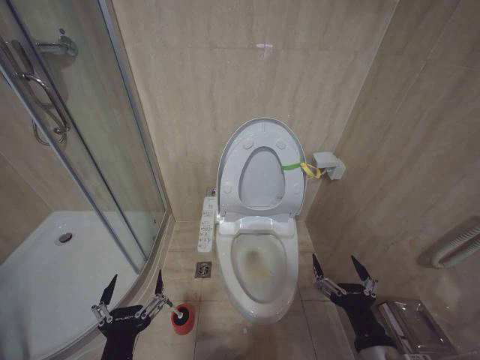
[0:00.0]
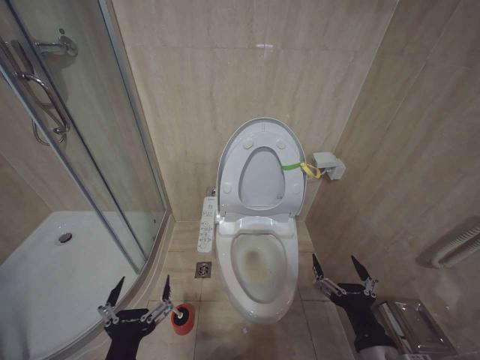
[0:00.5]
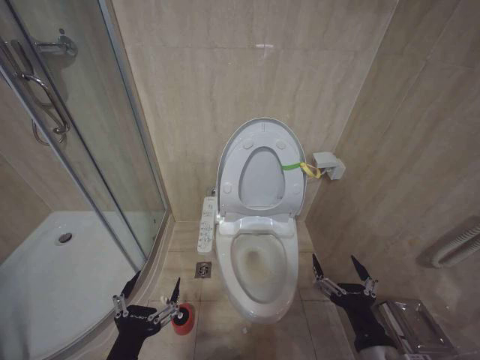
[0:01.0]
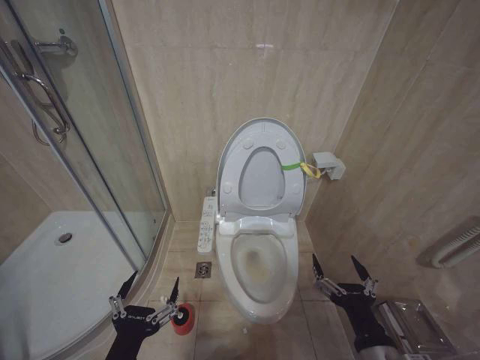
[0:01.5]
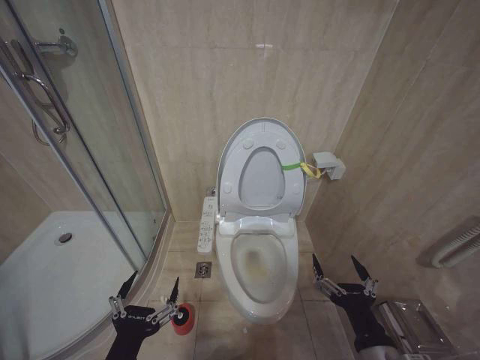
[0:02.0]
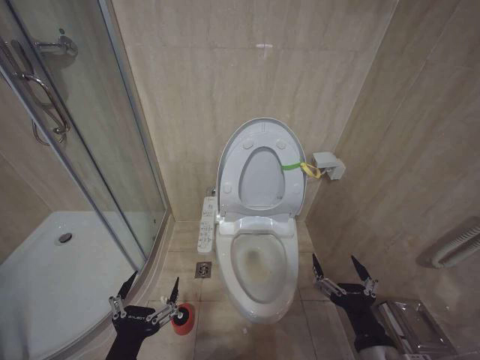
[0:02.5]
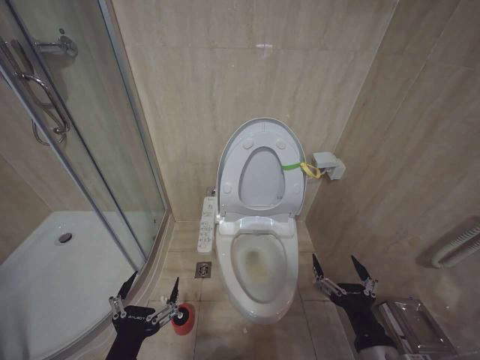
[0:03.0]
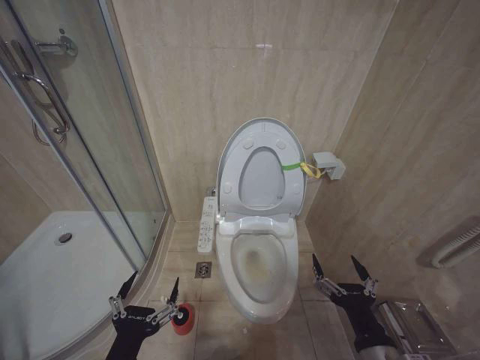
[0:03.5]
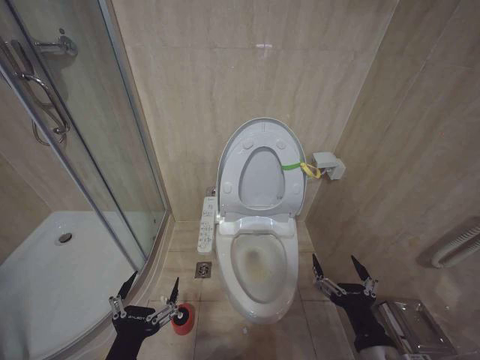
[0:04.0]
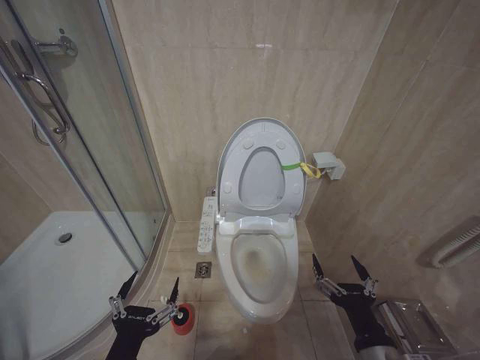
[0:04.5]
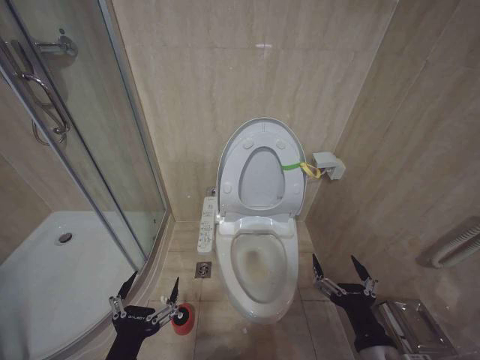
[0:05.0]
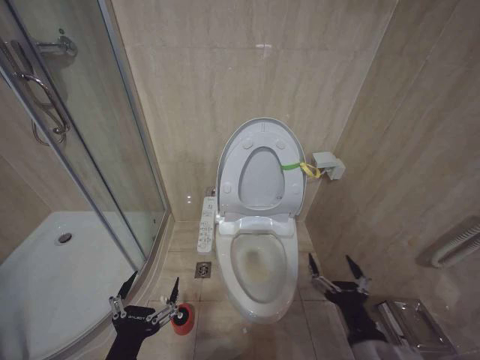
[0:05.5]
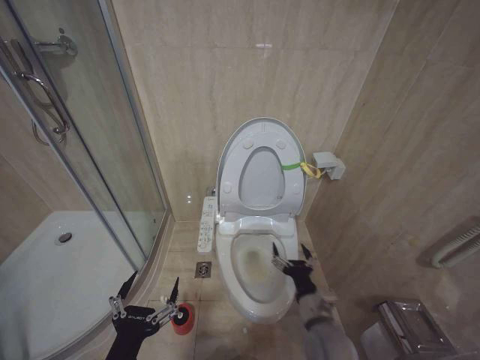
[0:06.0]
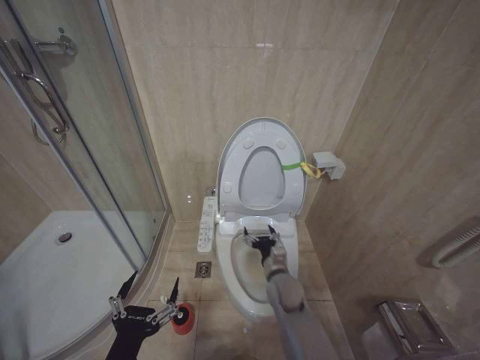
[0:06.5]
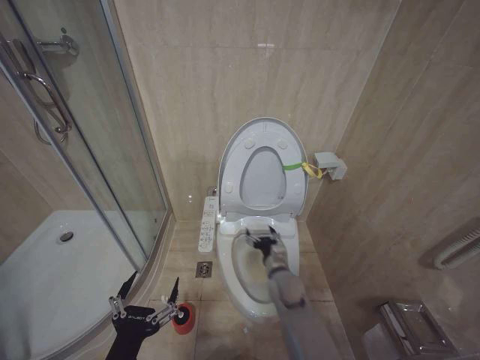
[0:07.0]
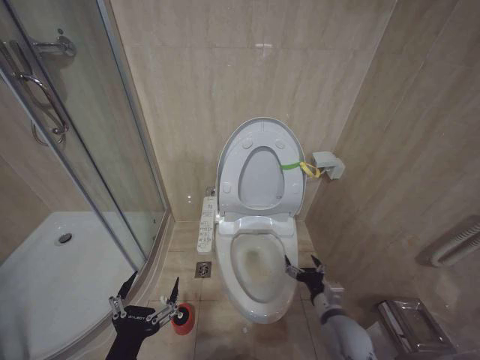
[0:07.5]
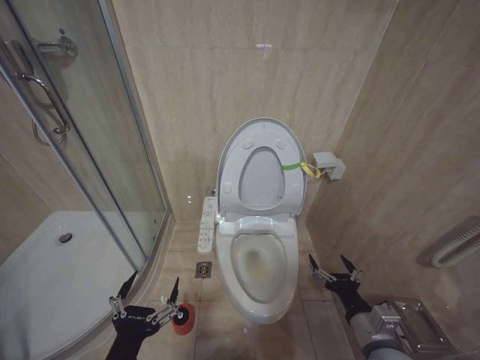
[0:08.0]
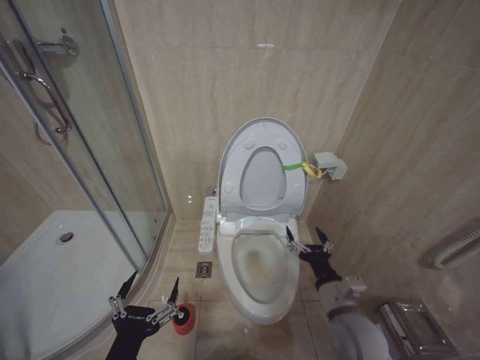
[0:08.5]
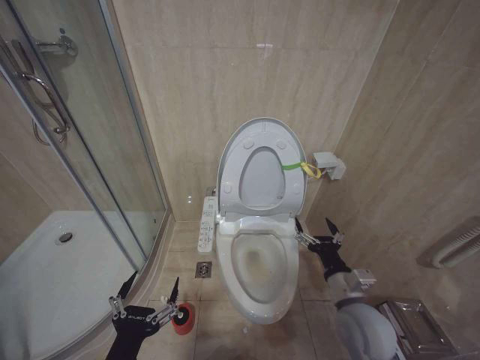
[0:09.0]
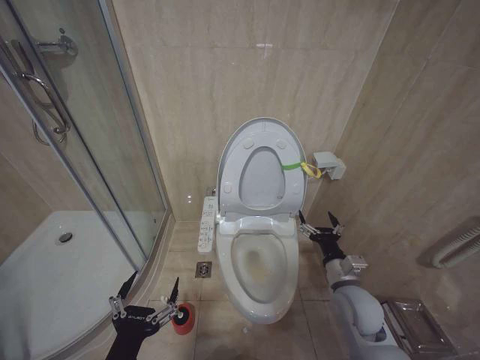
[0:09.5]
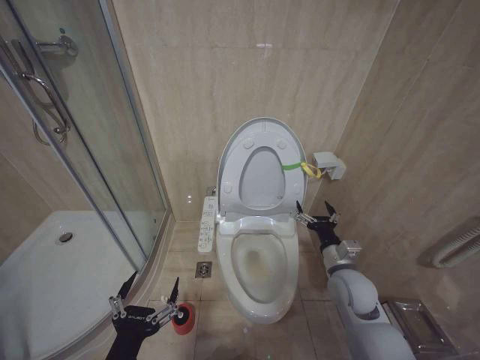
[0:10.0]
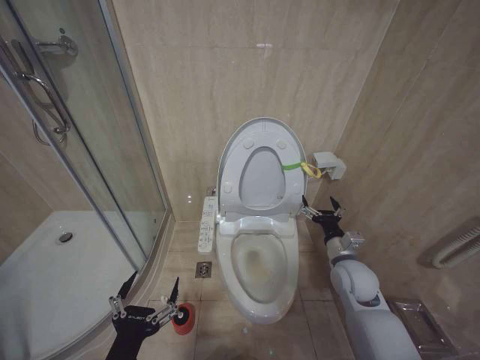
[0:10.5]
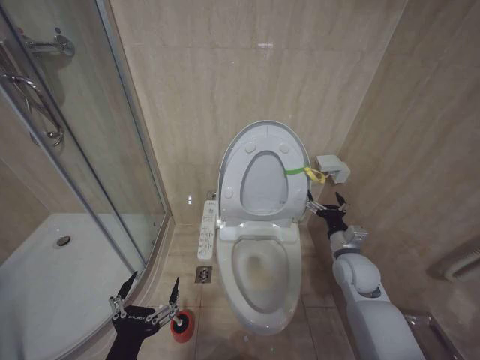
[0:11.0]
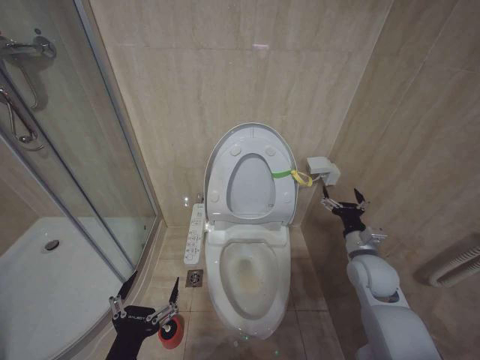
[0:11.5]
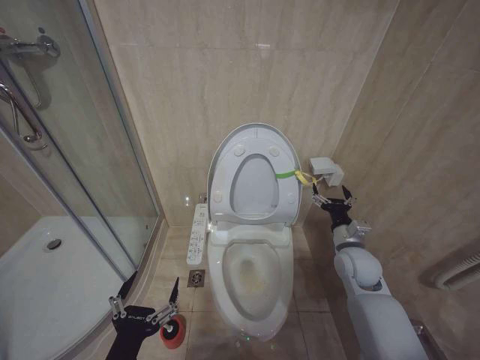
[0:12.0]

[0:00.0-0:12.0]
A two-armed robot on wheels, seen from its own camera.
Task of the whole recording: Open the toilet lid, clean the toilet bowl with a toilet brush, close the toilet lid, and flush.
0:00.0 to 0:02.0: The grippers stay close to where they were, moving slightly.
0:02.0 to 0:04.0: Both grippers stay about where they are.
0:04.0 to 0:06.0: The right gripper moves forward and downward, approximately 15 cm.
0:06.0 to 0:08.0: The right gripper travels to the right by approximately 10 cm, and travels forward and back again, roughly 15 cm each way.
0:08.0 to 0:10.0: The right gripper shifts approximately 15 cm forward.
0:10.0 to 0:12.0: The right gripper moves about 5 cm.

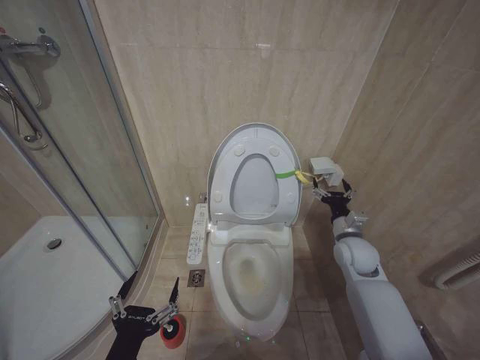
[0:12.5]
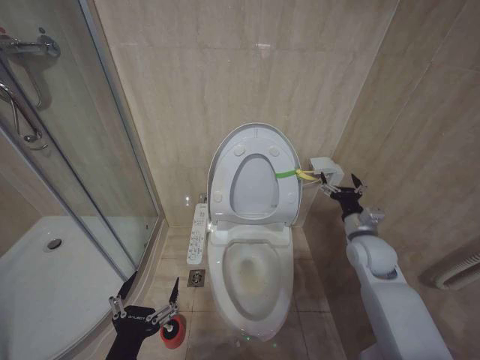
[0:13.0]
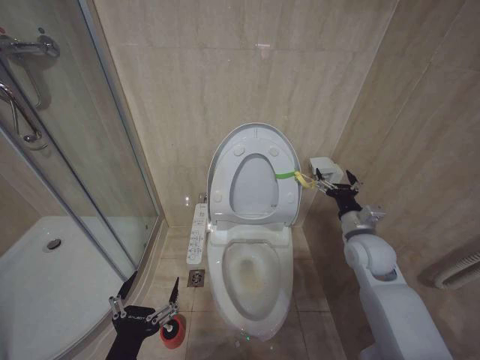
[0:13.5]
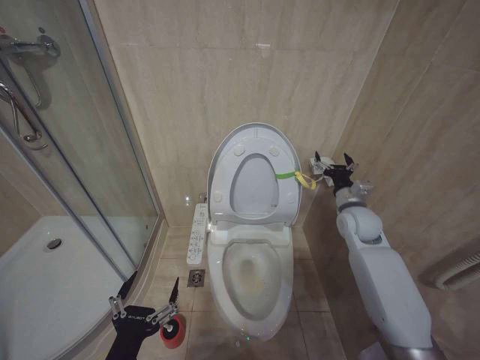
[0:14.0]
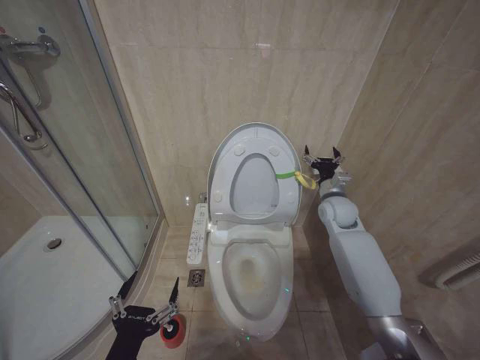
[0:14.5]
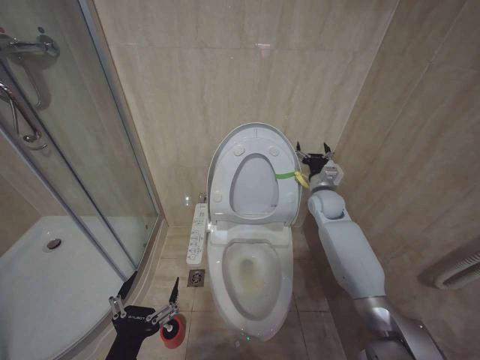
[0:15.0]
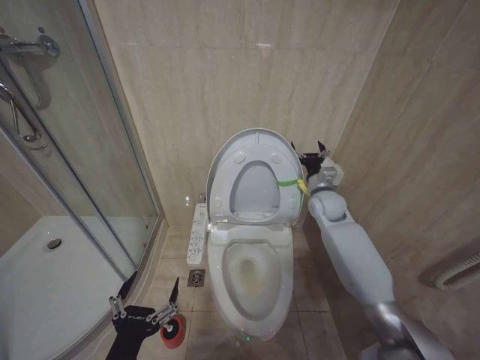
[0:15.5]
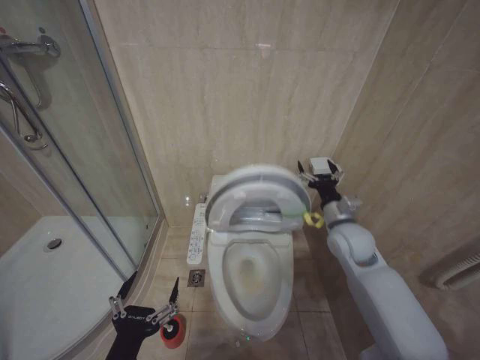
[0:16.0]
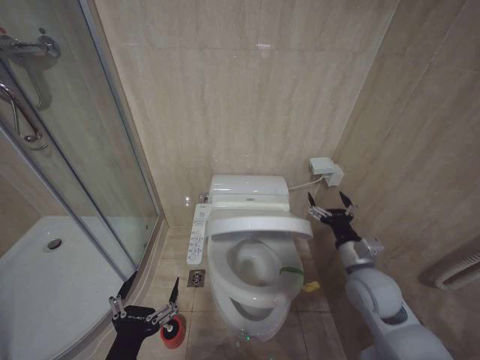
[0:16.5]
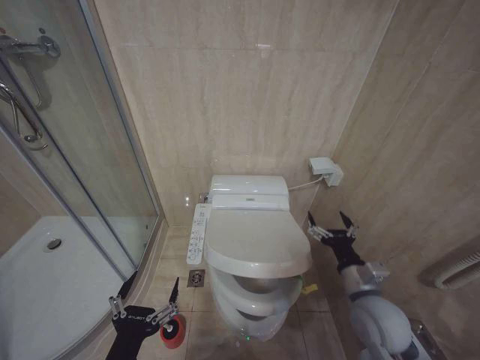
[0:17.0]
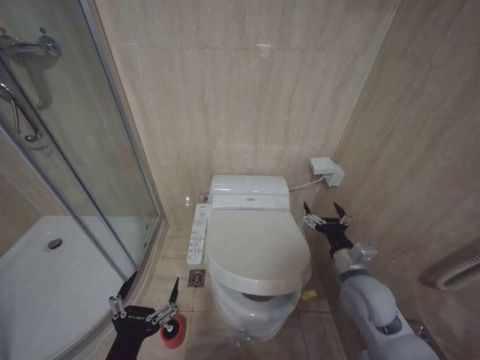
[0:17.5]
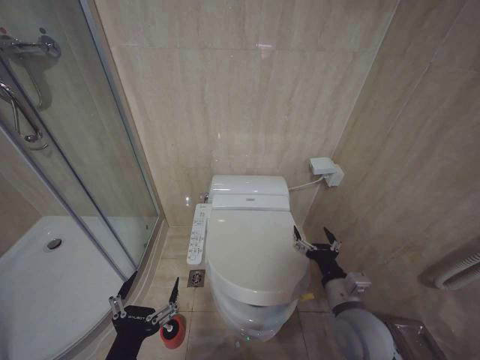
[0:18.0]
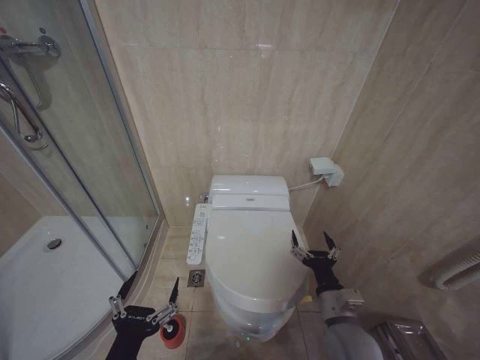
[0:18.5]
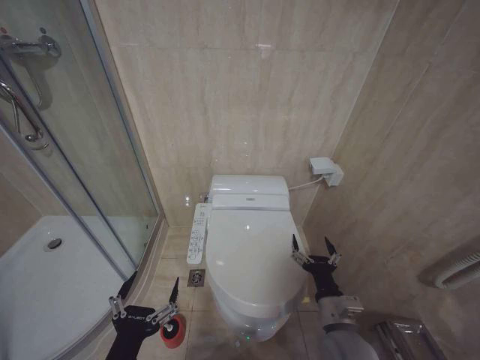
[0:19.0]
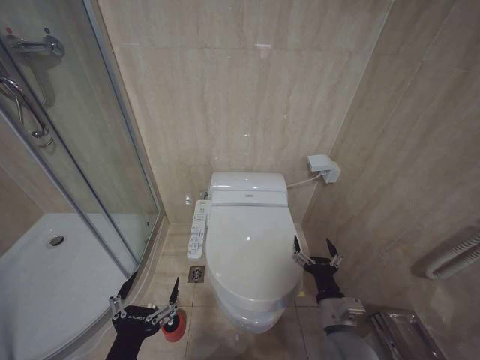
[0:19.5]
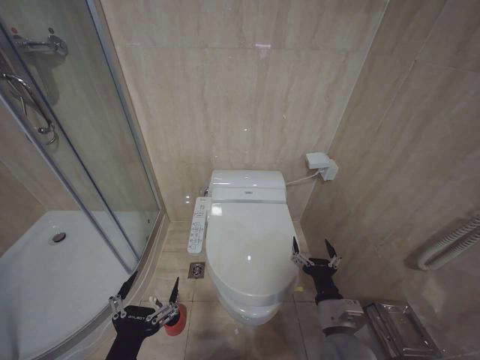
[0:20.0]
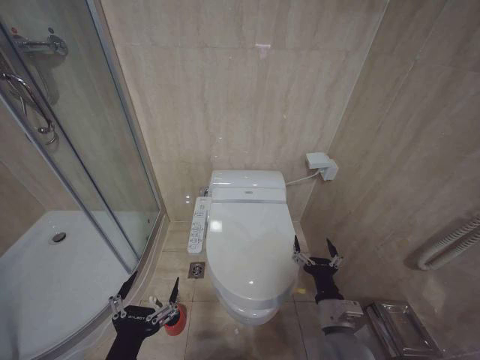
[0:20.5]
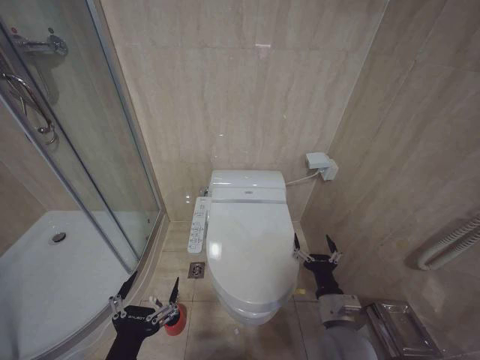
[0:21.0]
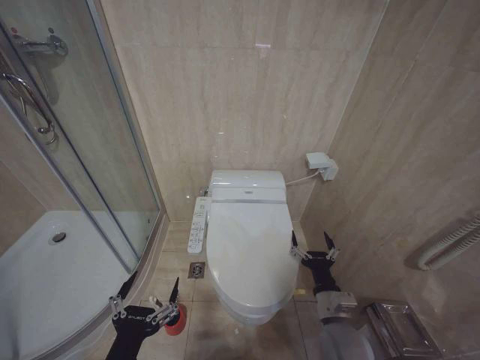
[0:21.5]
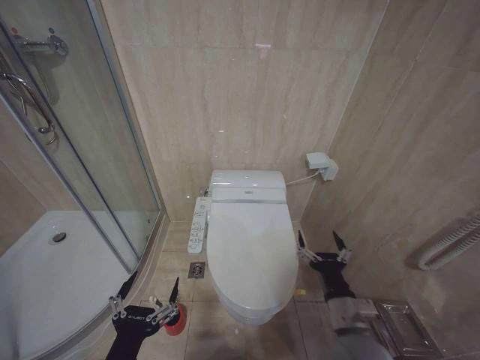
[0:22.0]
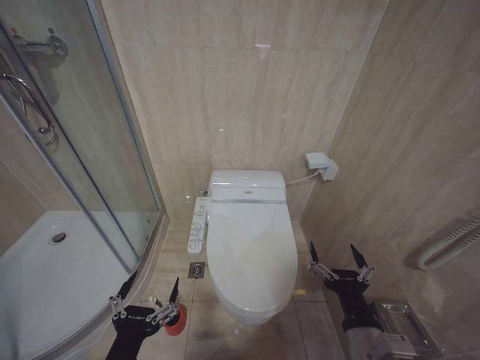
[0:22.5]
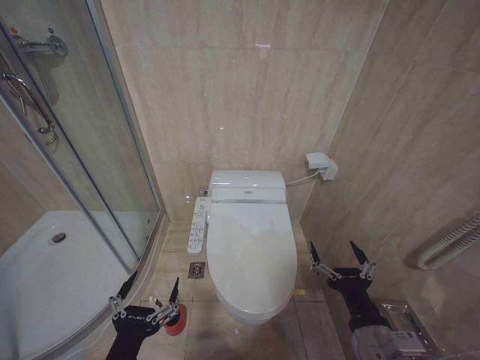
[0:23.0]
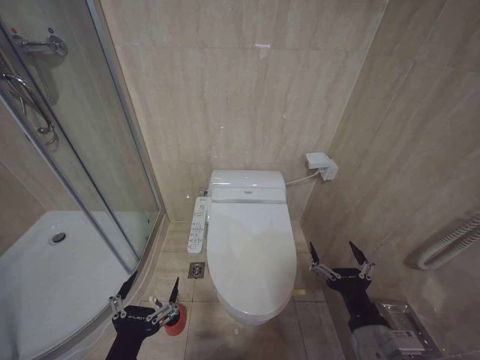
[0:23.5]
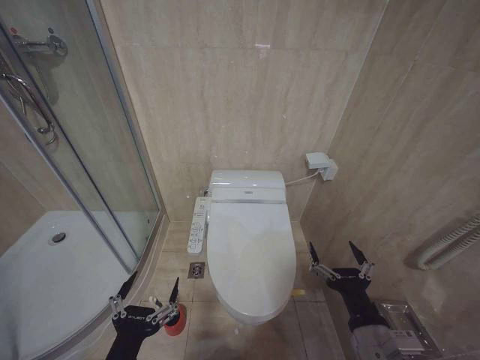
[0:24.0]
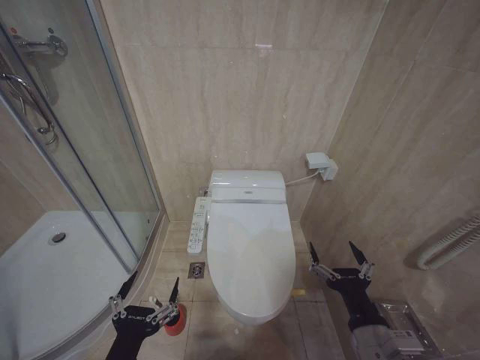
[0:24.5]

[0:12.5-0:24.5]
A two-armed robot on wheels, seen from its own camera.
Task of the whole recording: Open the toilet lid, clean the toilet bowl with a toilet brush, close the toilet lid, and flush.
0:12.5 to 0:14.5: The right gripper travels forward and upward by some 10 cm.
0:14.5 to 0:16.5: The right gripper is displaced backward by some 20 cm.
0:16.5 to 0:18.5: The right gripper swings forward and backward, approximately 10 cm each way, with 2 reversals.
0:18.5 to 0:20.5: The grippers move only a little.
0:20.5 to 0:22.5: The right gripper moves upward and backward, roughly 10 cm.

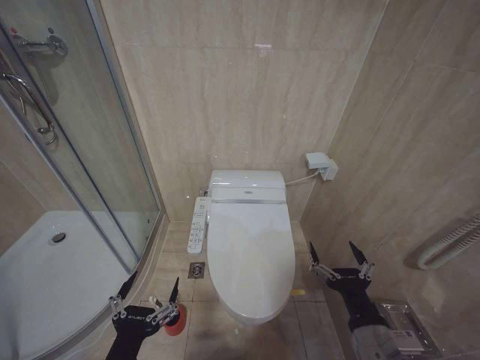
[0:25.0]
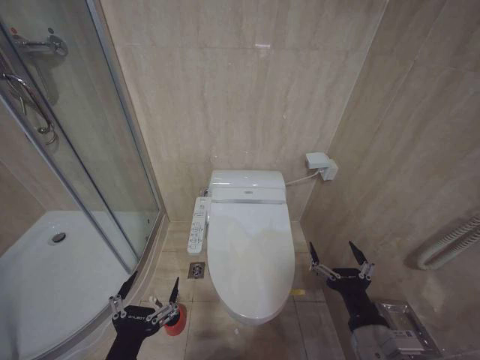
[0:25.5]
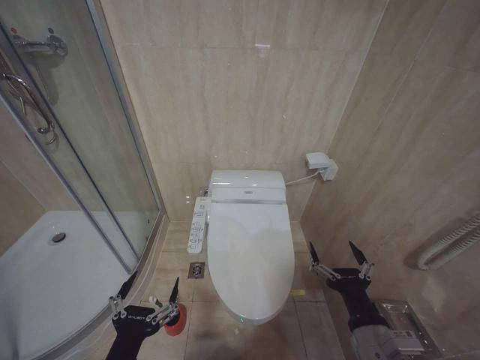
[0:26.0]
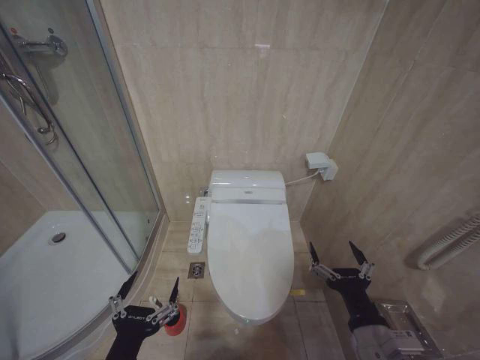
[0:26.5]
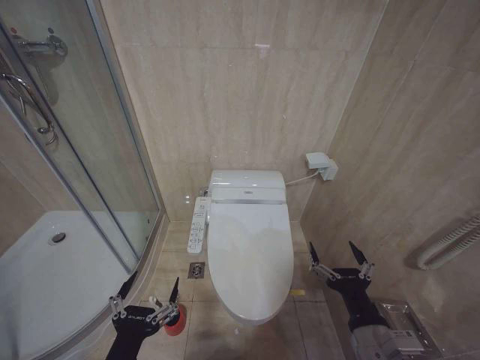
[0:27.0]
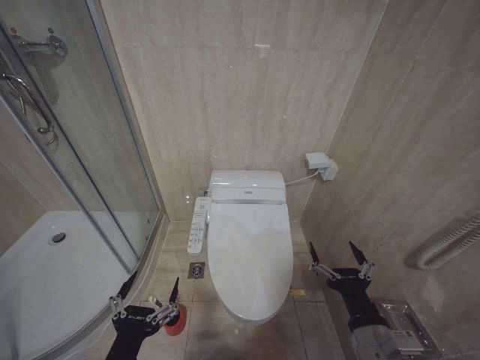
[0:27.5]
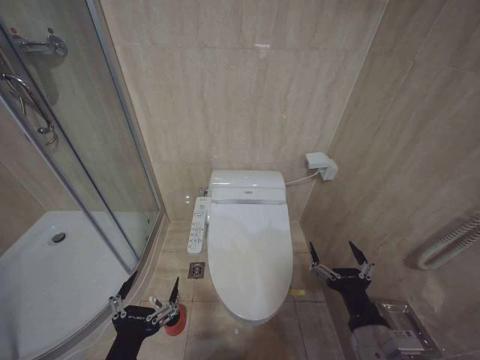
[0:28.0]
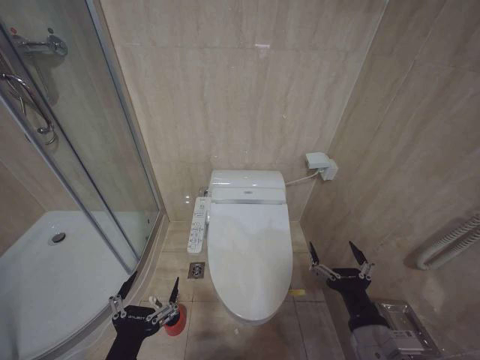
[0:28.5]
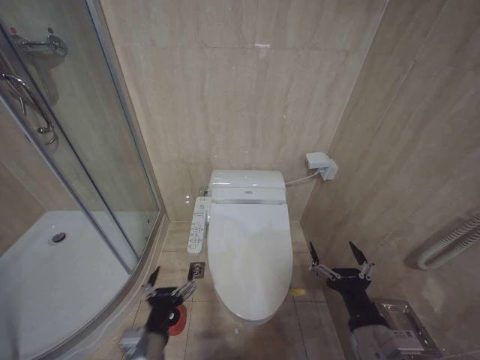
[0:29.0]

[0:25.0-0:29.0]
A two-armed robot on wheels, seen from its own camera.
Task of the whole recording: Open the toilet lid, clean the toilet bowl with a toilet brush, close the toilet lid, and flush.
0:25.0 to 0:27.0: Both grippers stay put.
0:27.0 to 0:29.0: The left gripper is displaced forward and downward by about 10 cm.
